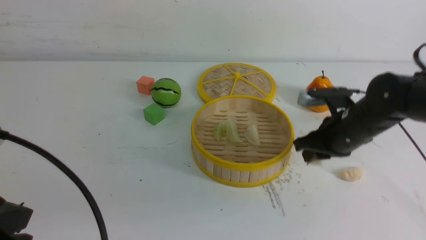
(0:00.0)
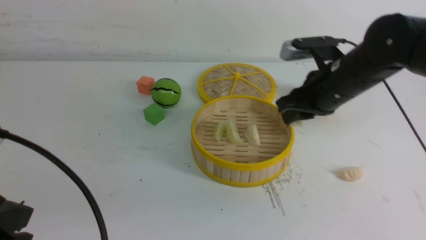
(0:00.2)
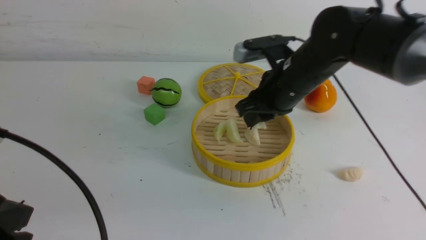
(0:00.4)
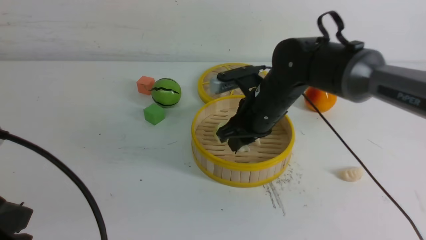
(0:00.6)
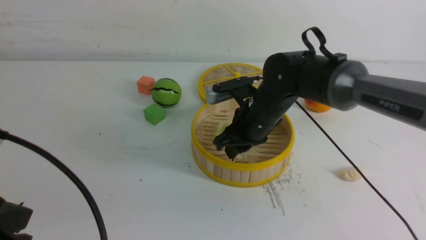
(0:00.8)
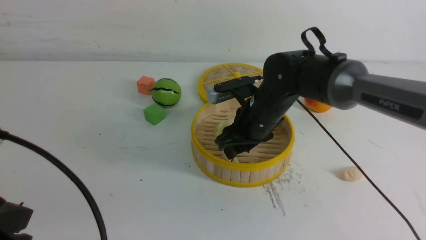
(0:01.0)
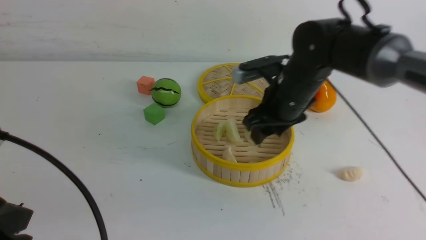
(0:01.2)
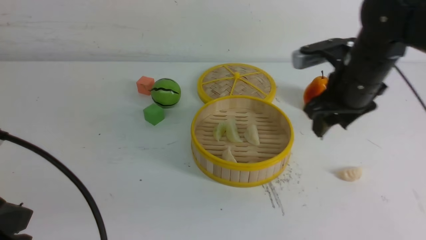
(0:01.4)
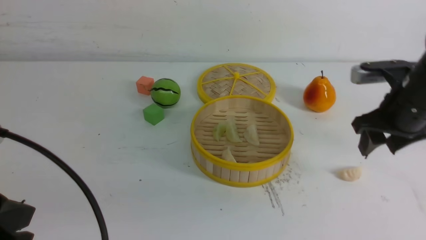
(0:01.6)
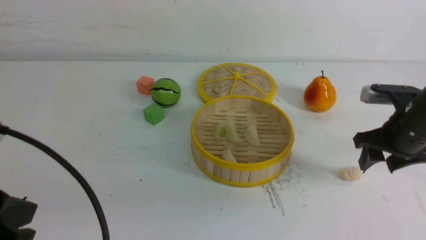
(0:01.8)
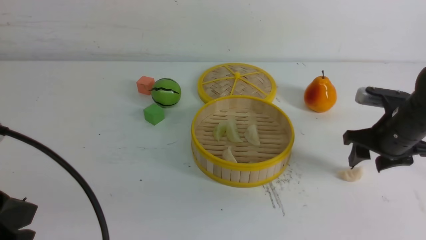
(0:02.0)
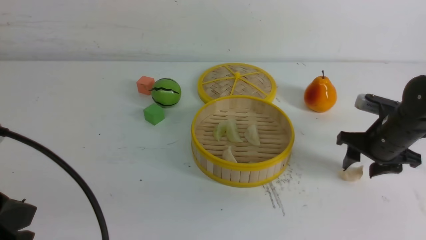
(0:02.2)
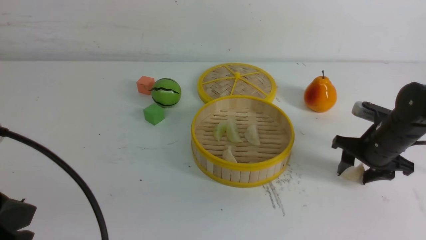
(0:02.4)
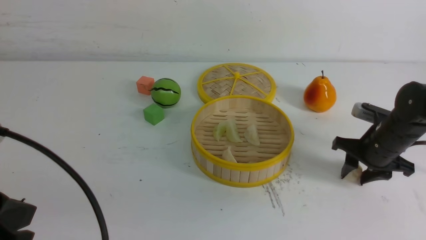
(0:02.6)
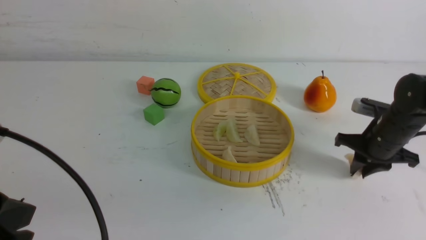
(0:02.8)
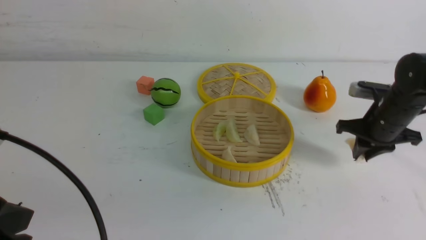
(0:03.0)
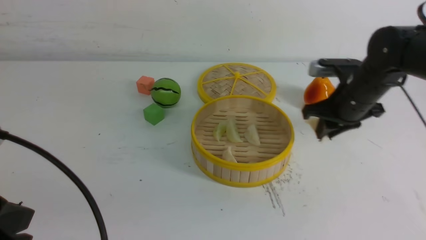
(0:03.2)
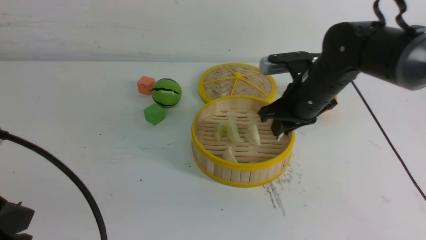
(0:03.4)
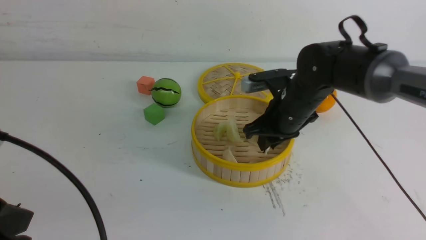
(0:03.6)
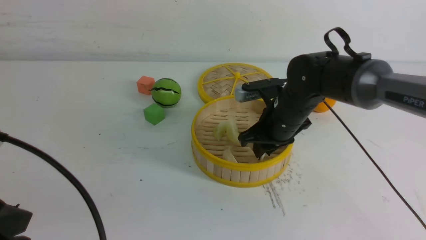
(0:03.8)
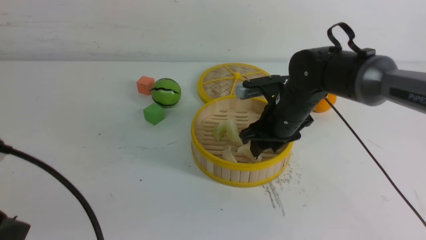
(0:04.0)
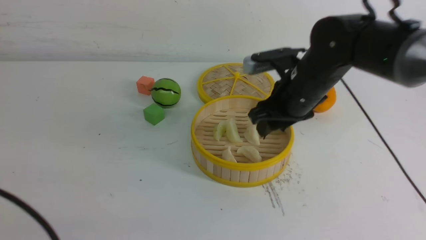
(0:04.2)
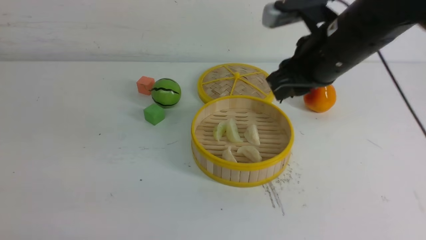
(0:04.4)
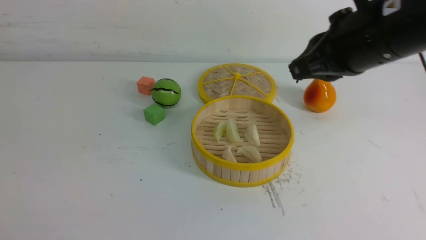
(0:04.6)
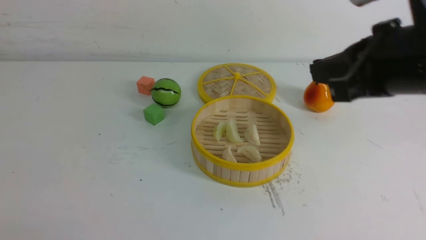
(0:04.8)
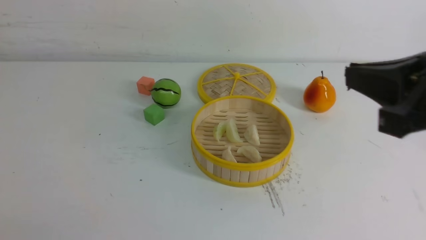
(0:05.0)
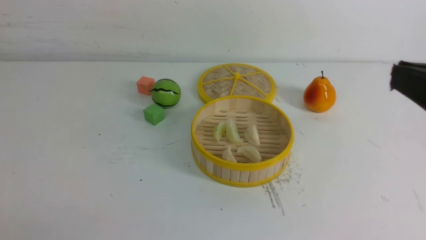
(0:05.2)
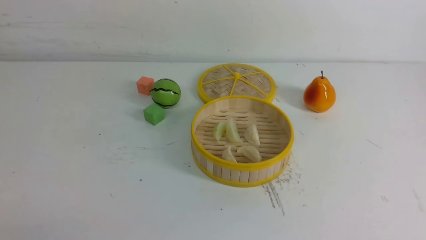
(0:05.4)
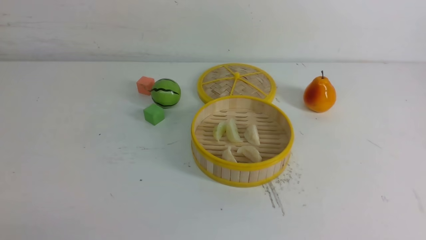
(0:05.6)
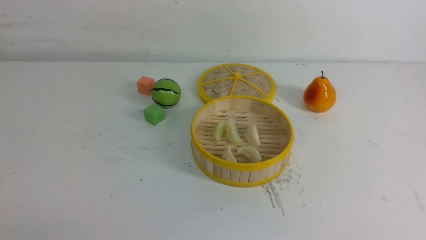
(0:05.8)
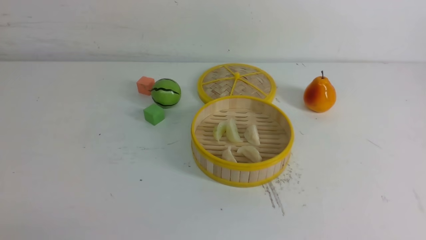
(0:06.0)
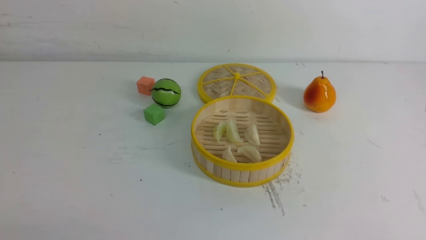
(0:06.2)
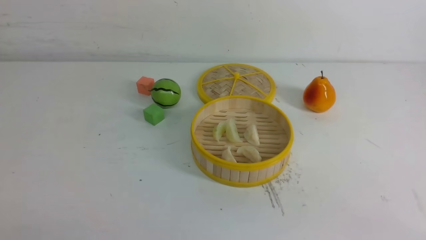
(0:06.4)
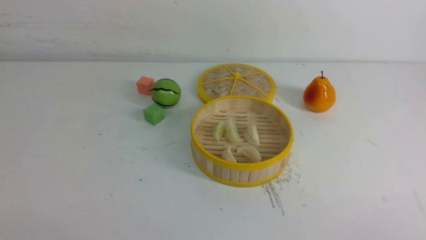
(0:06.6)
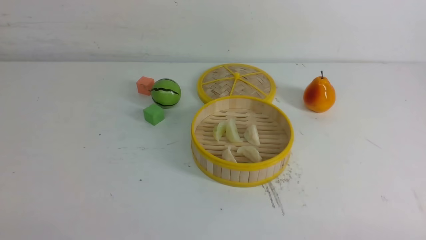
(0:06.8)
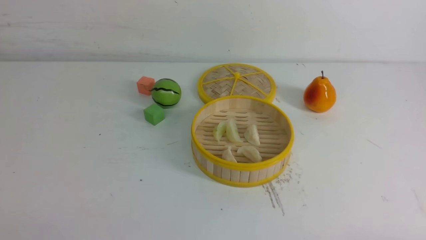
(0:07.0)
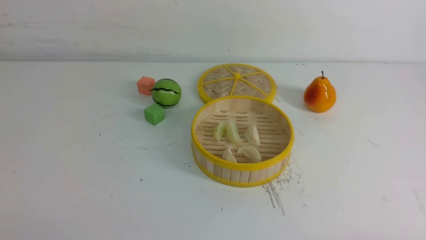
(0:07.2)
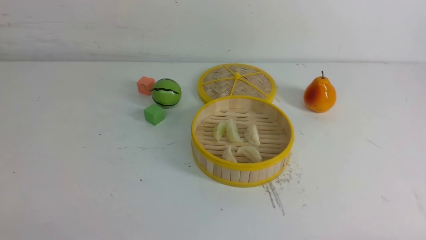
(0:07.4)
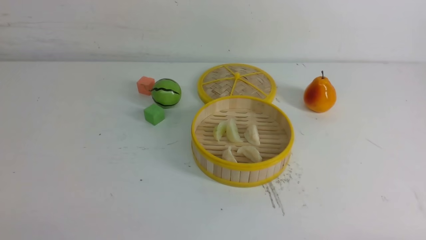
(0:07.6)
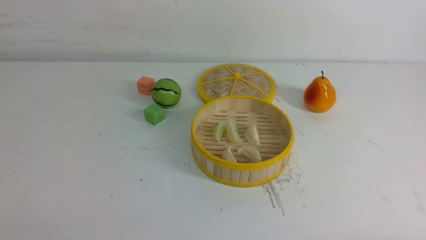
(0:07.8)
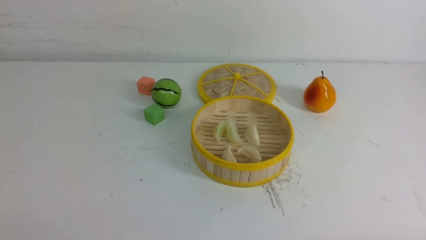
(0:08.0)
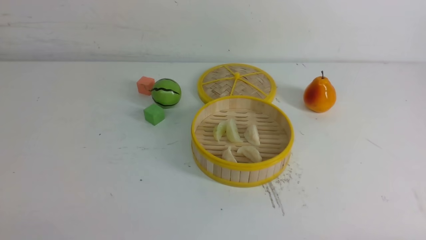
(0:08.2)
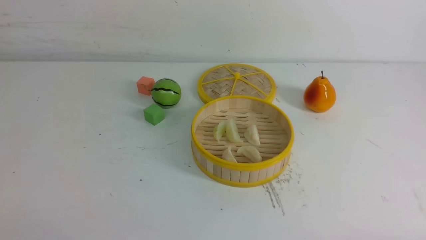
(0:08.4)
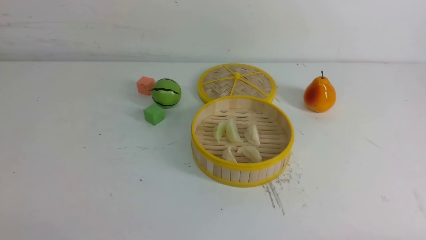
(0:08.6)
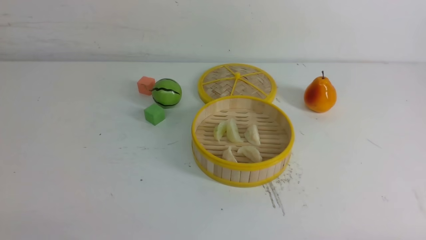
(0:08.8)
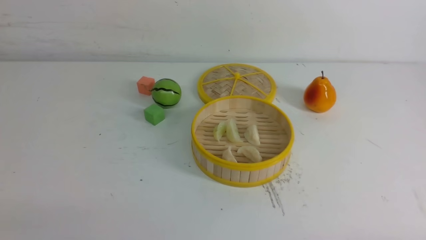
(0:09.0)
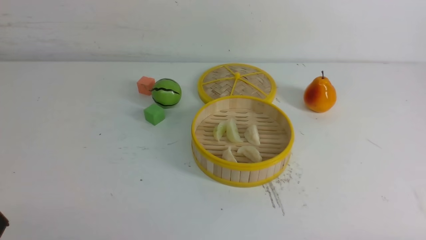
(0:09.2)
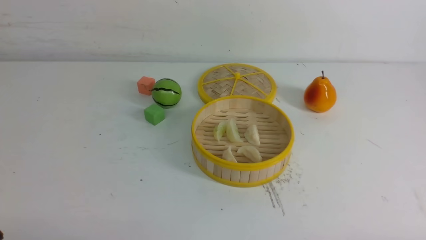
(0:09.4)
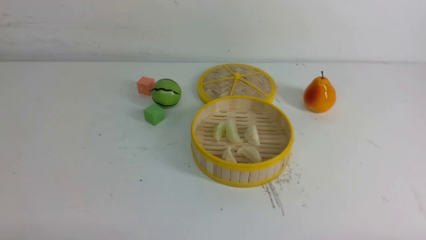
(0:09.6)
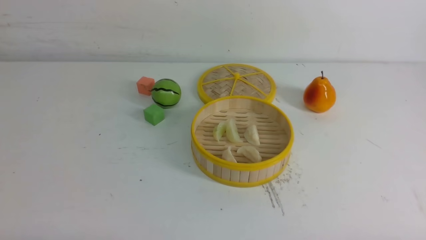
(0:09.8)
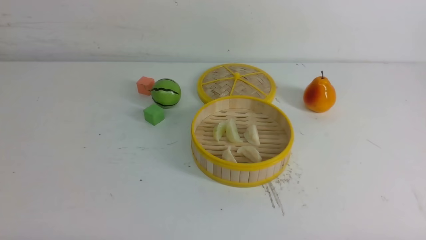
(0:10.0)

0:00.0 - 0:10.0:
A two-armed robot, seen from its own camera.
Task of the whole recording: put the dumplings into the steamer on the white table.
Step, 0:00.0 - 0:00.8: use the right arm to put the dumpling into the steamer.
Step, 0:01.2 - 0:02.8: use the right arm to grab a dumpling.
Step, 0:03.0 - 0:04.0: use the right arm to put the dumpling into the steamer.
0:00.0 - 0:01.4: The right gripper heads upward, covering about 5 cm, reaches some 10 cm to the left, then returns, and opens its fingers.
0:01.4 - 0:02.8: The right gripper shifts roughly 15 cm downward and to the right, and closes.
0:02.8 - 0:04.2: The left gripper changes place by roughly 5 cm. Meanwhile the right gripper moves to the left and upward, about 20 cm.
0:04.2 - 0:05.8: The right gripper goes some 30 cm backward and to the right, and closes its fingers. The left gripper is displaced backward by roughly 5 cm.
0:07.2 - 0:08.6: Neither gripper changes place.

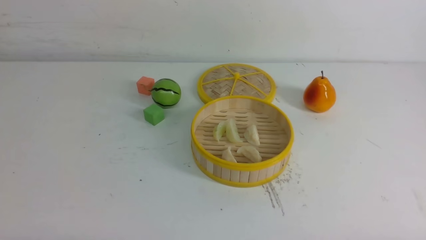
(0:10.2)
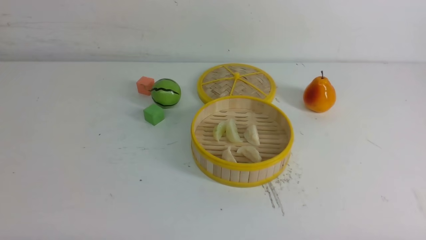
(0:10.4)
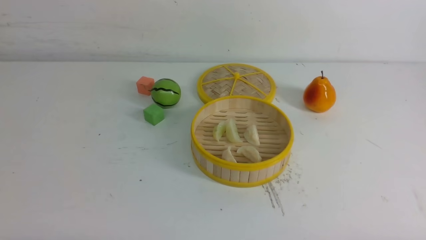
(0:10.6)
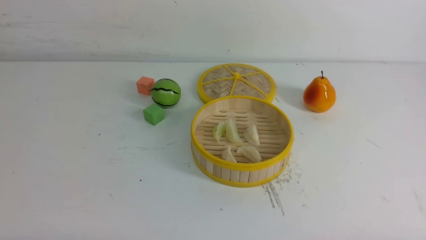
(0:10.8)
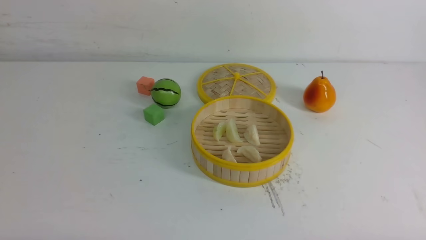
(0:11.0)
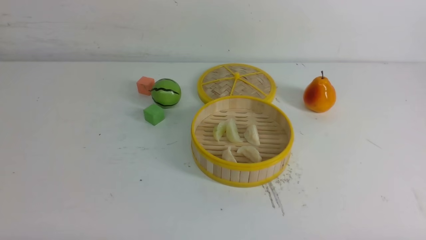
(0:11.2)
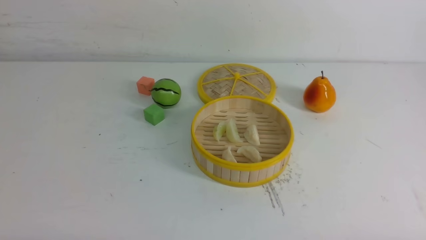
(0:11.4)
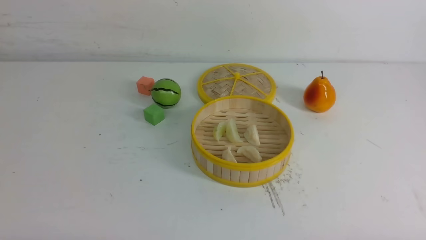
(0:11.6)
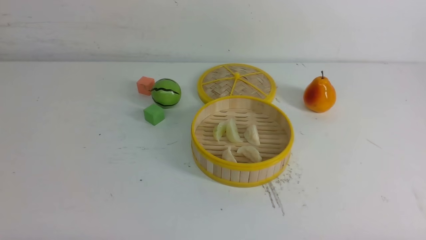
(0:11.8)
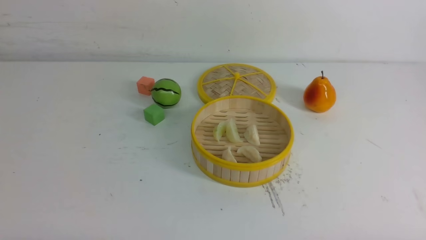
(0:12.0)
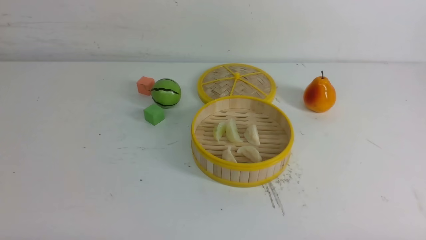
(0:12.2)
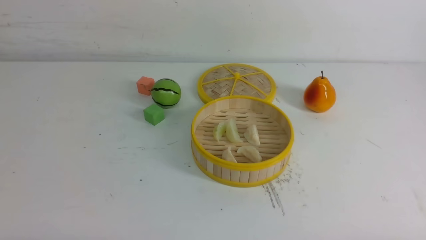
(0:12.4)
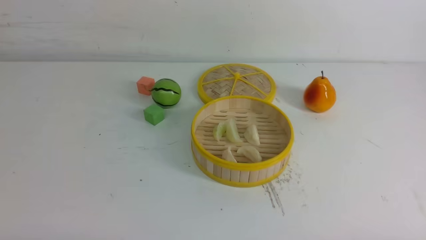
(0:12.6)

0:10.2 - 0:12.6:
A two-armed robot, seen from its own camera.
Task of the whole recording: put the dumplings into the steamer on the white table.
0:10.2 - 0:12.6: The two grippers keep their place.

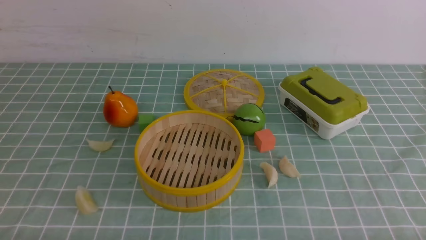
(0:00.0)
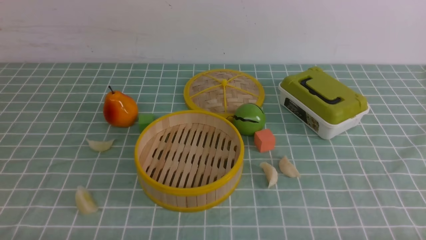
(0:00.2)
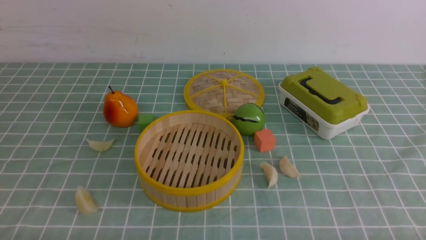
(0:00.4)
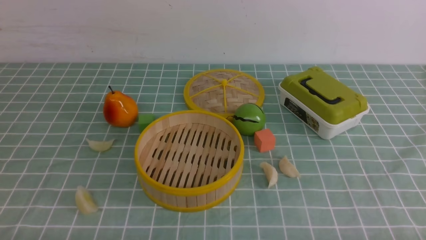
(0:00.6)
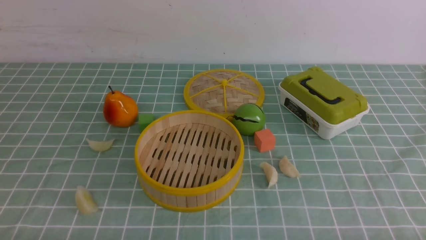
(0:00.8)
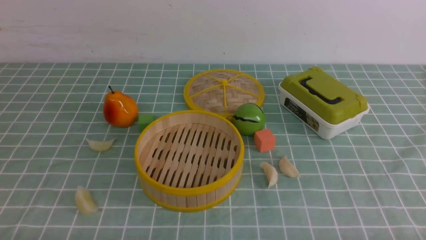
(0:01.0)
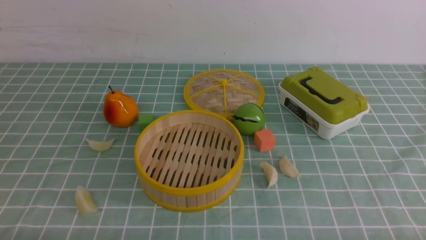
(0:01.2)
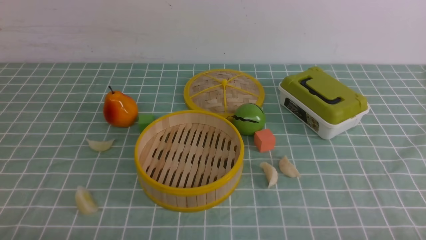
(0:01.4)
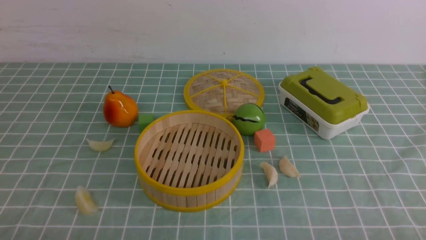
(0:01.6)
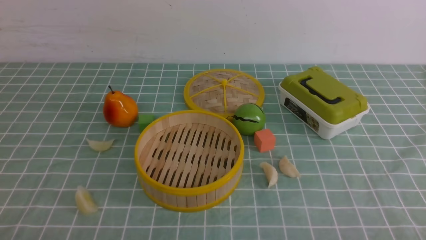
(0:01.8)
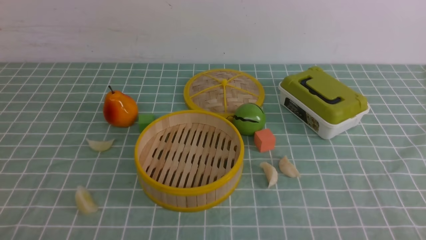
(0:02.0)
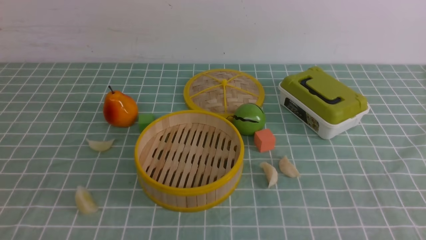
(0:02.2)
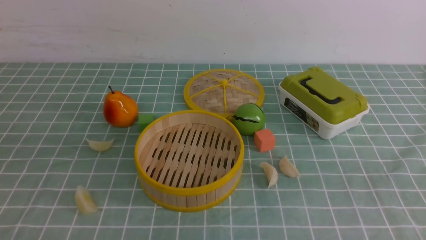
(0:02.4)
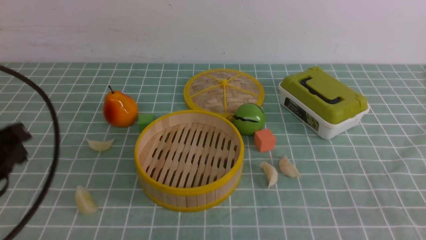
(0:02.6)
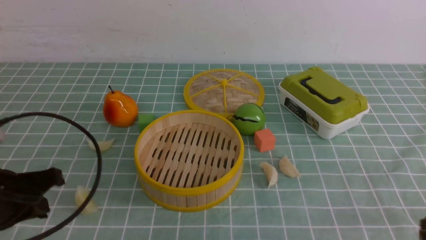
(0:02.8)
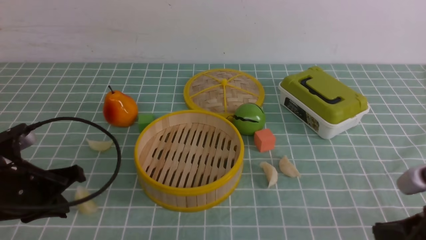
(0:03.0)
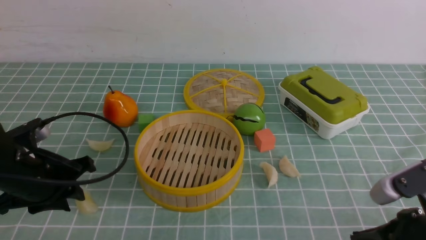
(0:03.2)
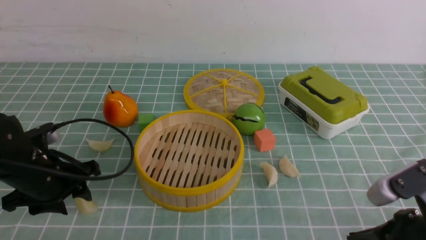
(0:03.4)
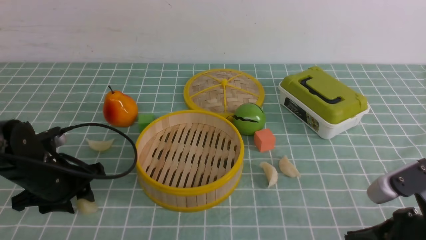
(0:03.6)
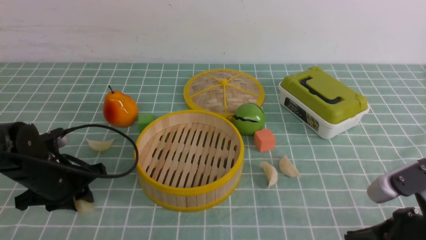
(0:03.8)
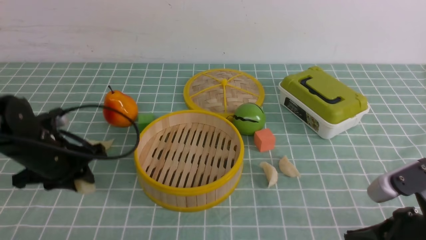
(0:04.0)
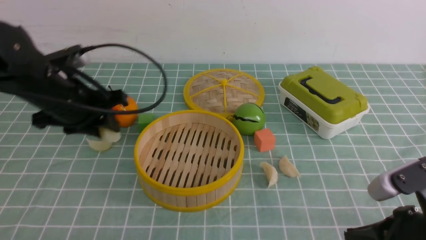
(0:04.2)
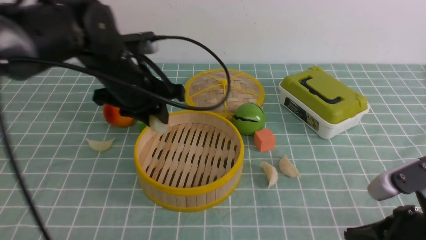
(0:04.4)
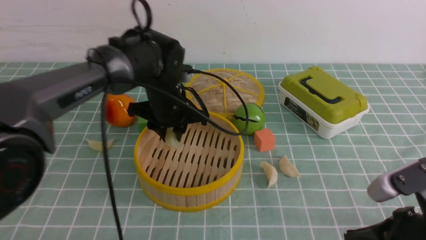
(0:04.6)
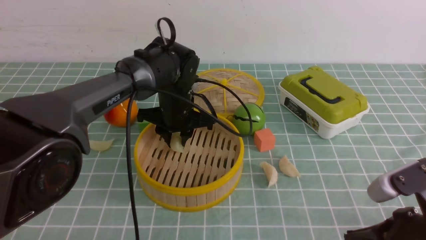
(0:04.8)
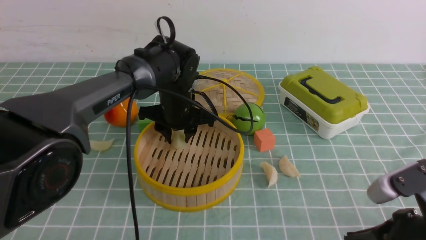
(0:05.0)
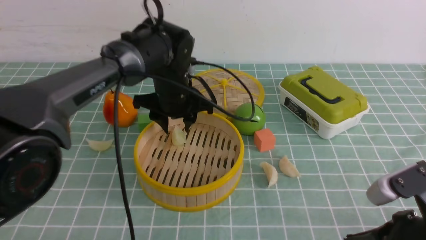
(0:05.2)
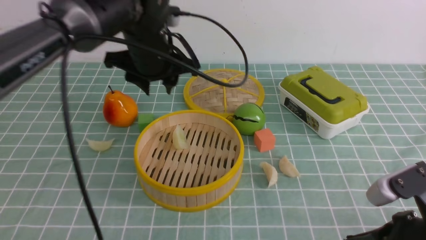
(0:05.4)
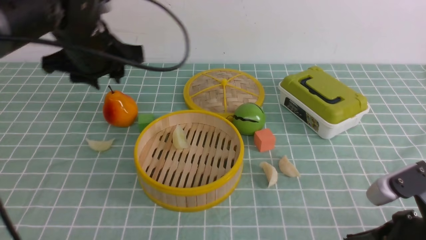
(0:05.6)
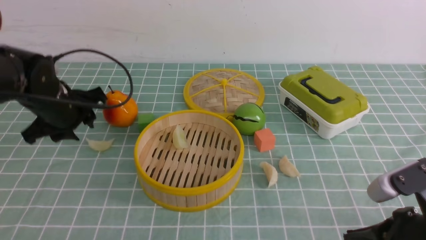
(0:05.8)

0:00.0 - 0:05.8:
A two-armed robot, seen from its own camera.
Task of the whole recording: put the dumplings into the steamer on the table with the blue tablecloth.
Step, 0:00.0 - 0:04.0: use the left arm to grab a dumpling.
Step, 0:04.2 - 0:05.2: use the left arm to put the dumpling into the steamer.
0:01.4 - 0:02.8: The left gripper is displaced forward by about 15 cm.
0:02.8 - 0:04.4: The right gripper travels to the left by roughly 5 cm. Meanwhile the left gripper travels forward and to the right by approximately 20 cm, and opens its fingers.
0:04.4 - 0:05.8: The left gripper is displaced to the left by some 10 cm.
